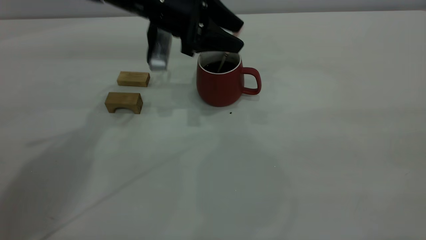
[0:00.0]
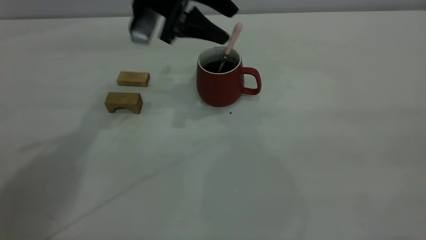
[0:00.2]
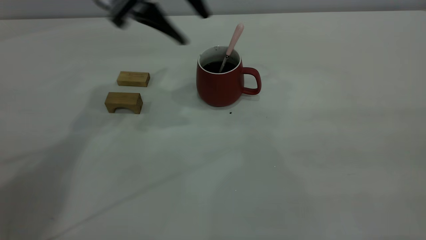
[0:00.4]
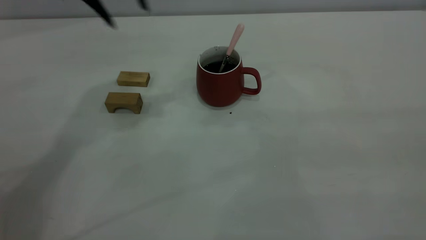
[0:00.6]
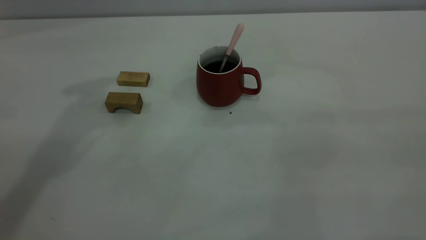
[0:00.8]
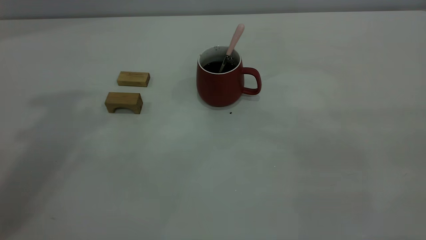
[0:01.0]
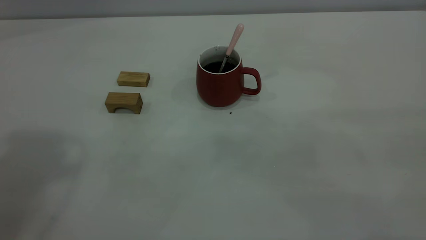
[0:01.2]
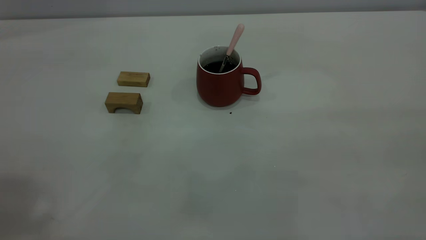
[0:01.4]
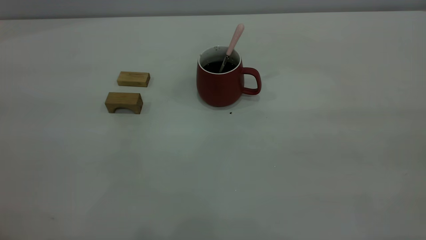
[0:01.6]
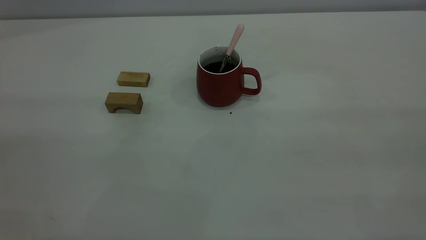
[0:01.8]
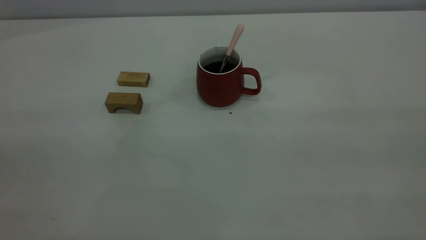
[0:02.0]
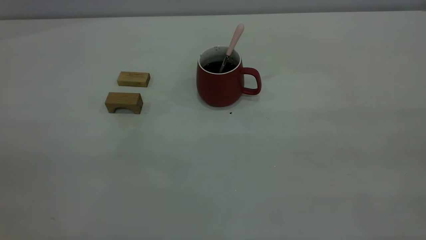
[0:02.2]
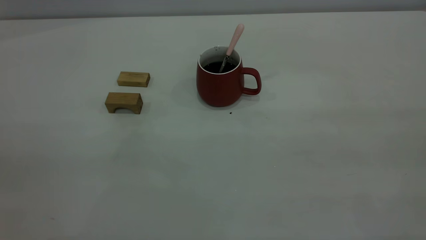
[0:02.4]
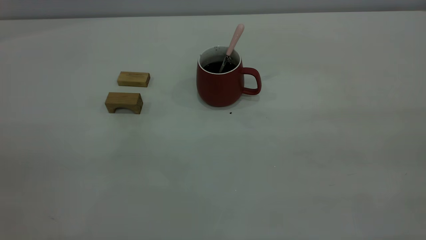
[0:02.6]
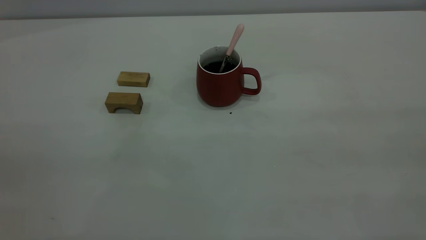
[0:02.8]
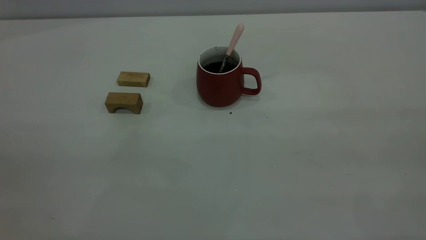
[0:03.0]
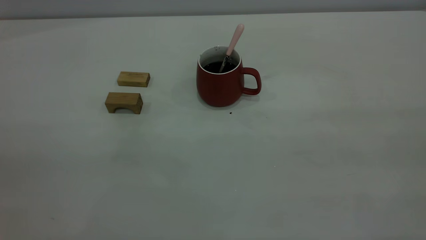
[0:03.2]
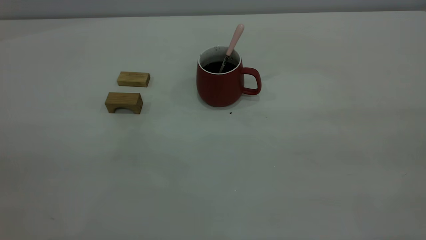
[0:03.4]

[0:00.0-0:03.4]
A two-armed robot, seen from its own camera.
0:00.0 to 0:01.6: The left gripper travels backward, upward and to the left by roughly 50 cm.
